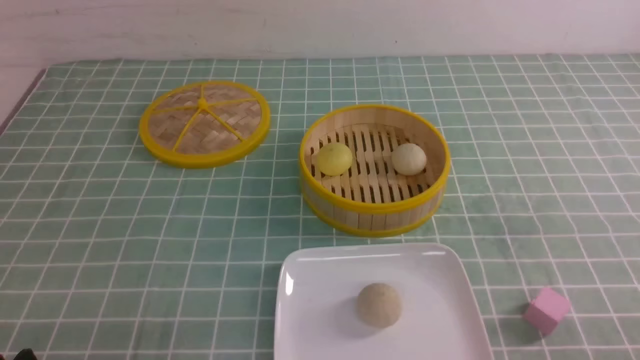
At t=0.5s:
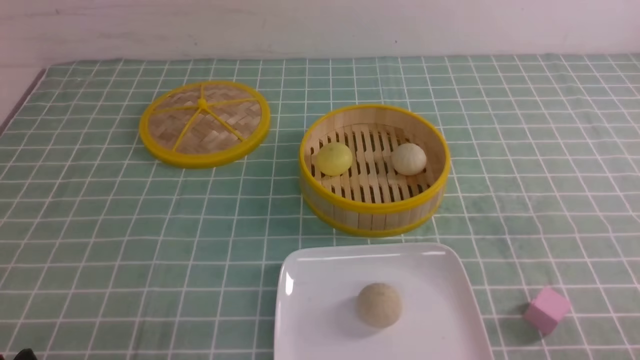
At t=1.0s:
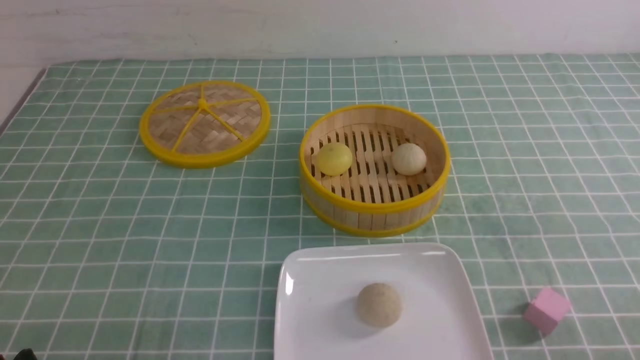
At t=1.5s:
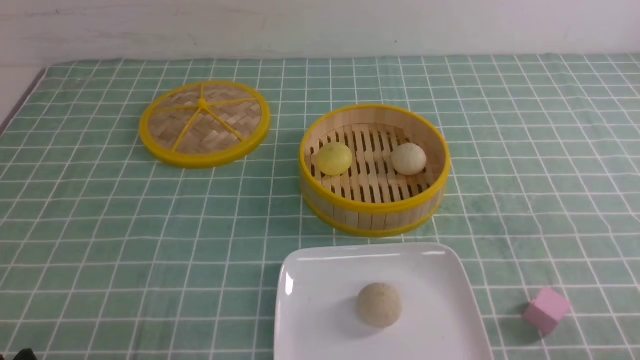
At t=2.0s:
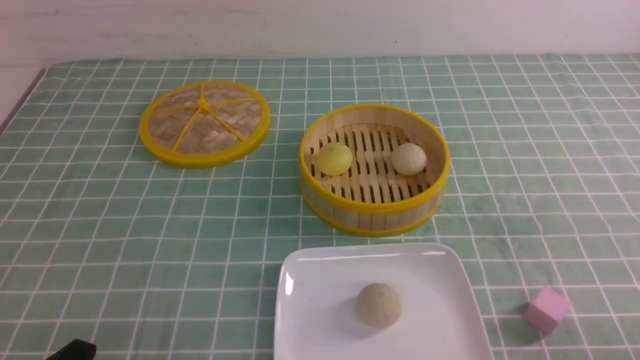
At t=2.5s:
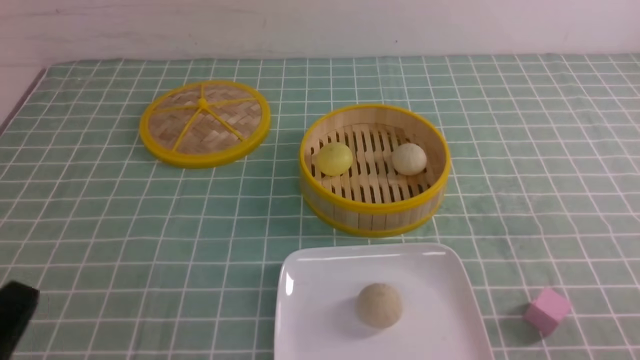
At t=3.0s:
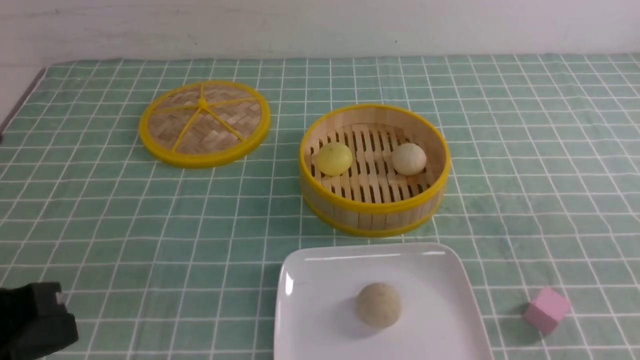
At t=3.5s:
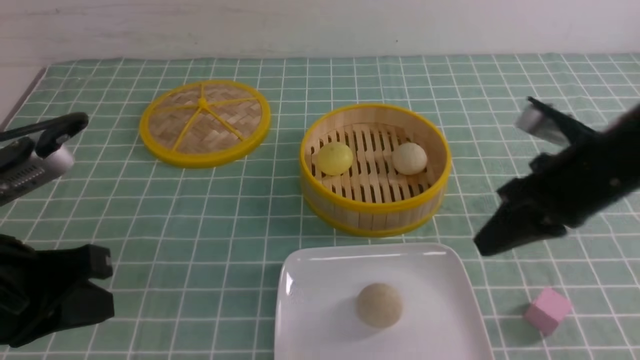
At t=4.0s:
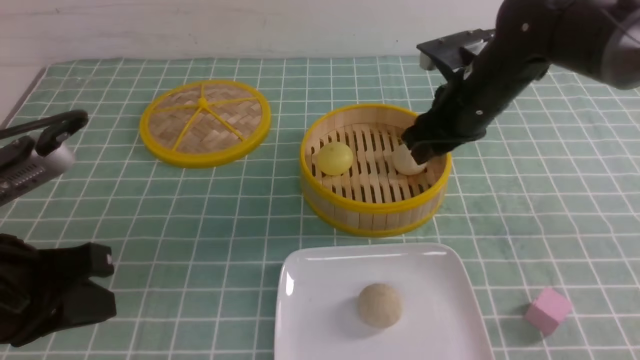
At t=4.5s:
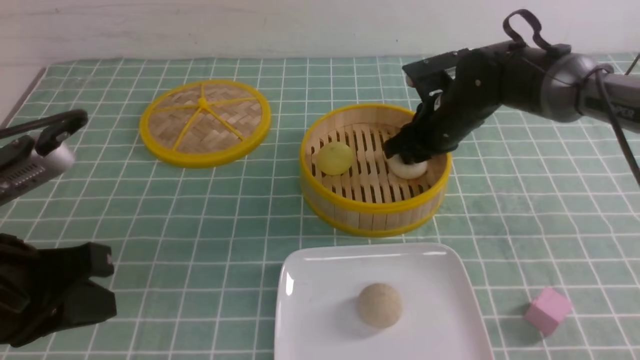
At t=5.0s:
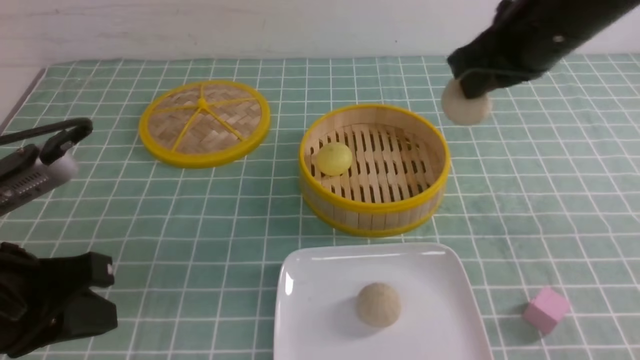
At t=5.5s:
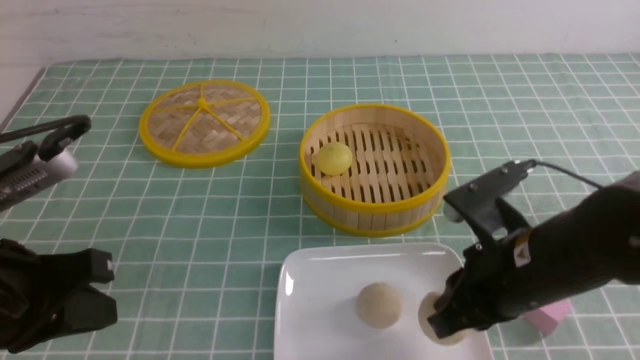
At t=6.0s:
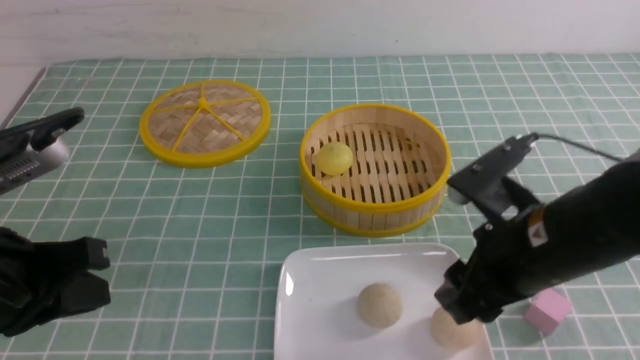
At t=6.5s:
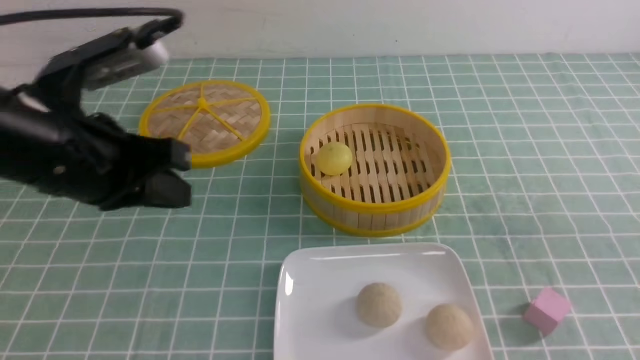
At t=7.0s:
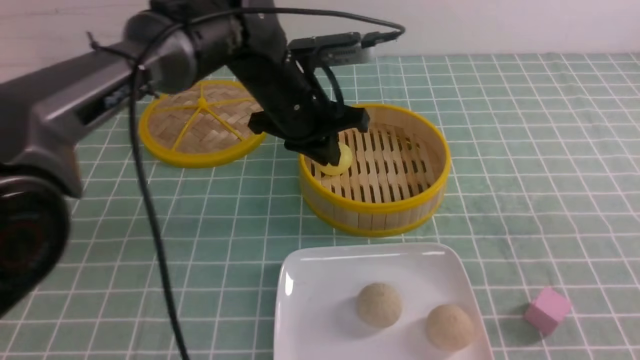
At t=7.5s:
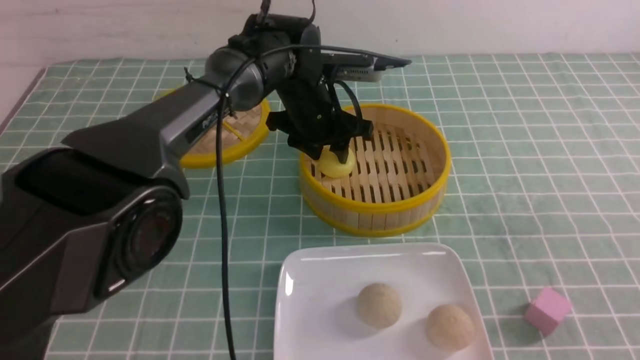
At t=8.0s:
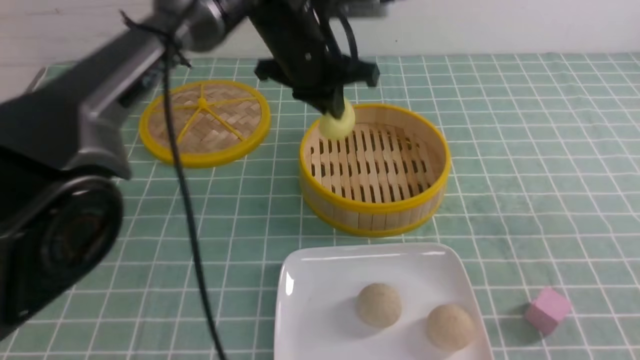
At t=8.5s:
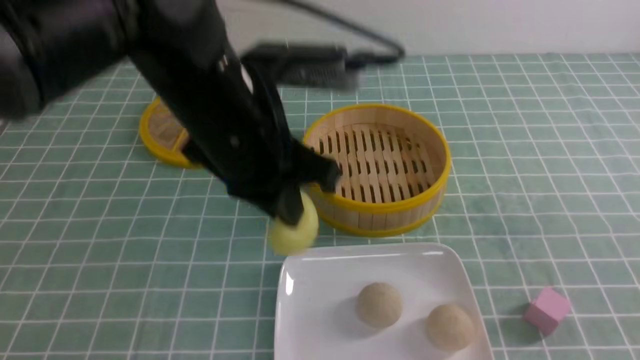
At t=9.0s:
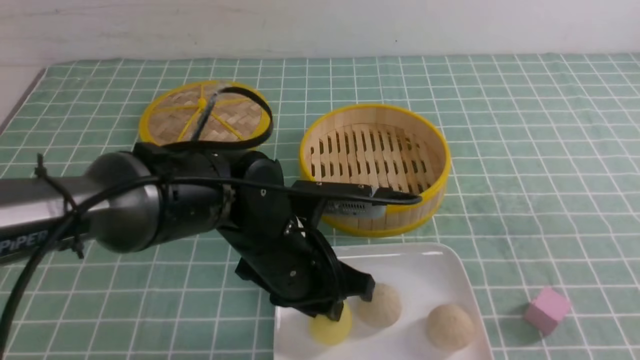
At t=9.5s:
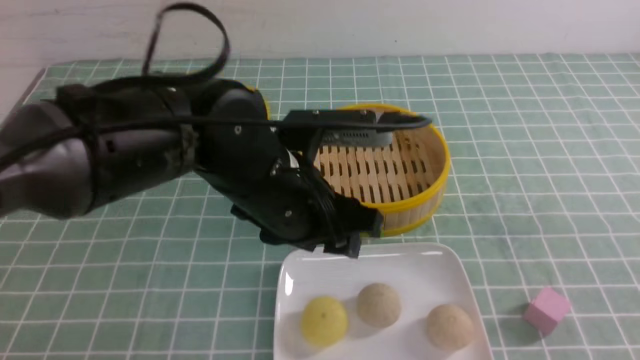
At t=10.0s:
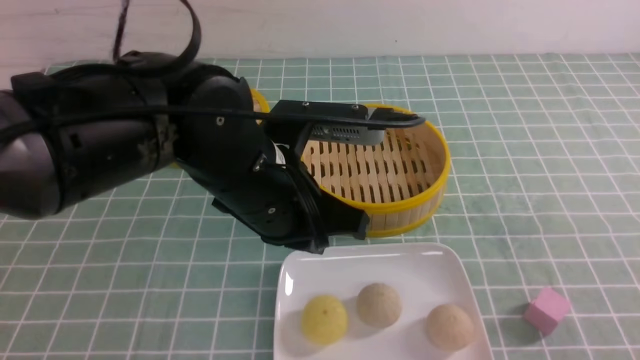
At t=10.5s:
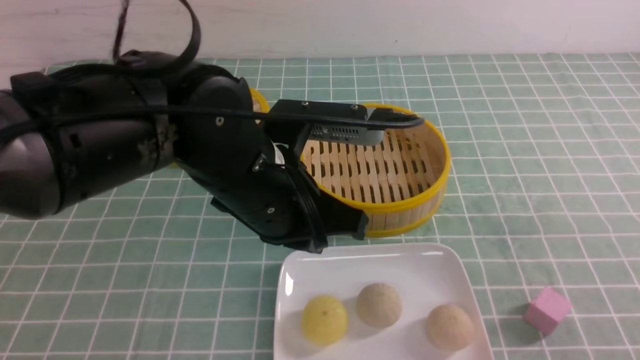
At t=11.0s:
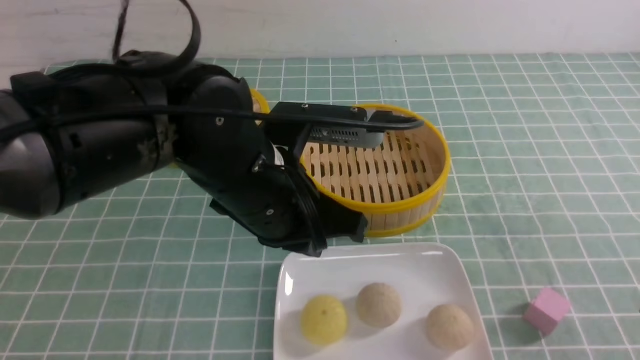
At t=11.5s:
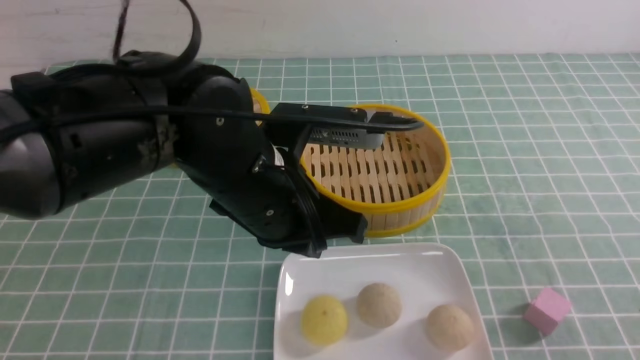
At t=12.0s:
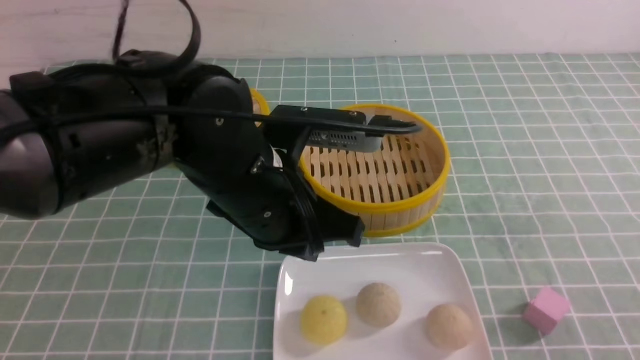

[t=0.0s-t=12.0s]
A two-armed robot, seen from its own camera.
Step, t=0.0s to t=4.5s: use the right arm to grab the steamed stuffed bun that is closest to it.
Step, t=5.0s to t=5.5s: use the right arm to put the steamed stuffed bun into the plate.
Step, t=6.0s to t=7.5s: use the left arm to grab the steamed stuffed bun that is closest to it.
Step, t=8.0s to t=9.0s: use the left arm to put the steamed stuffed bun into the plate.
t=2.0s to t=4.0s: The left gripper moves upward and forward, some 15 cm, and closes its fingers. The right gripper shifts roughly 40 cm forward and to the left, and closes and opens again.
t=4.0s to t=6.0s: The right gripper heads backward, covering approximately 20 cm, and closes and opens again.
t=6.0s to t=8.0s: The right gripper shifts approximately 15 cm backward and to the right, and closes up, while the left gripper travels forward and to the right by roughly 30 cm, and opens, then closes once more.
t=8.0s to t=10.0s: The left gripper travels backward by some 15 cm, and opens and closes again. The right gripper shifts roughly 5 cm backward.
t=10.0s to t=12.0s: The right gripper travels downward by about 10 cm.

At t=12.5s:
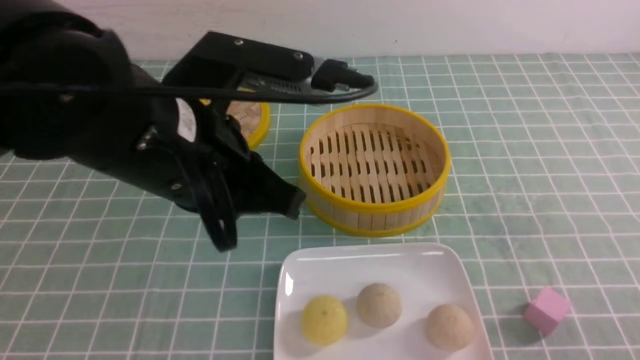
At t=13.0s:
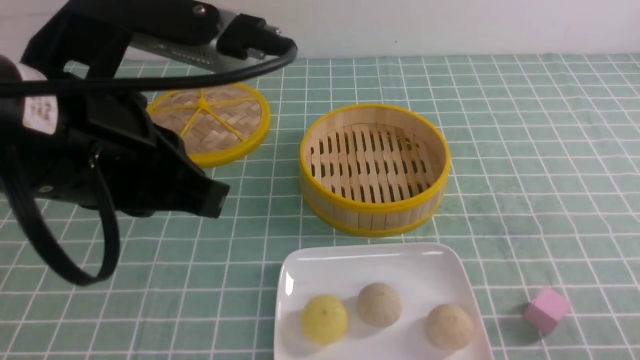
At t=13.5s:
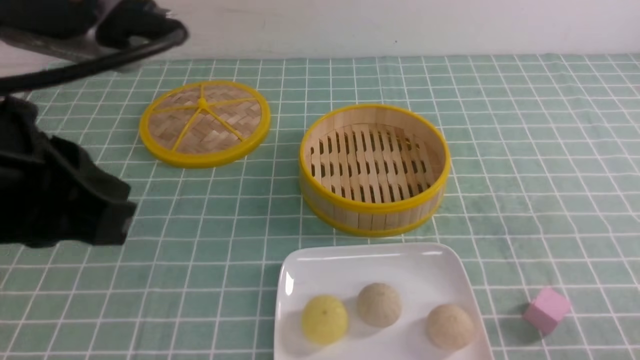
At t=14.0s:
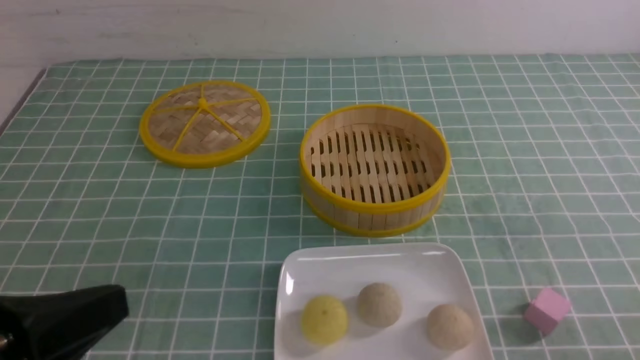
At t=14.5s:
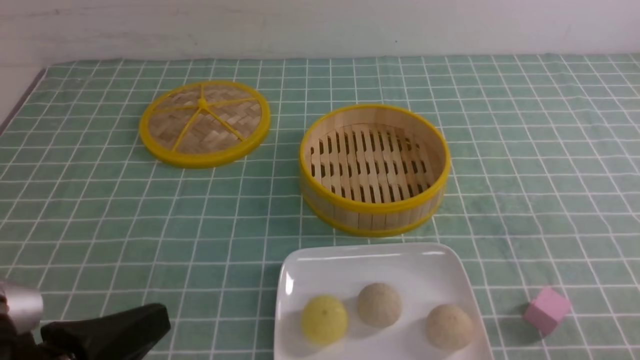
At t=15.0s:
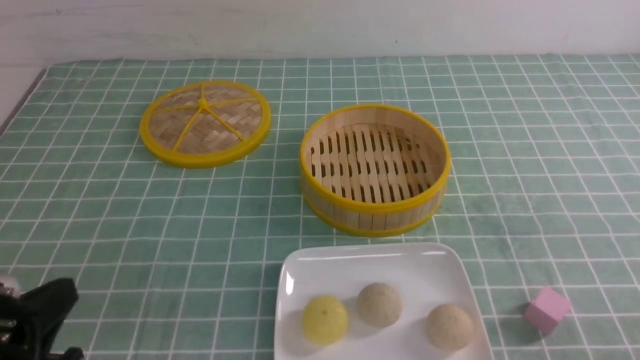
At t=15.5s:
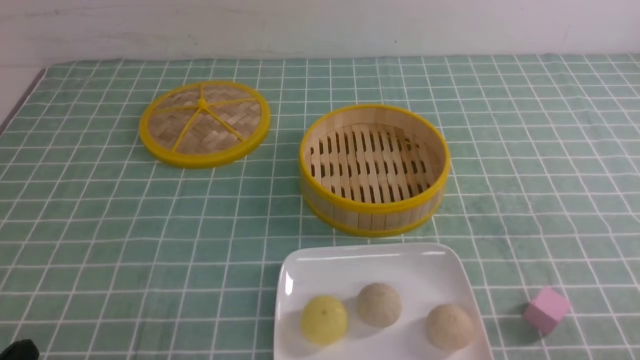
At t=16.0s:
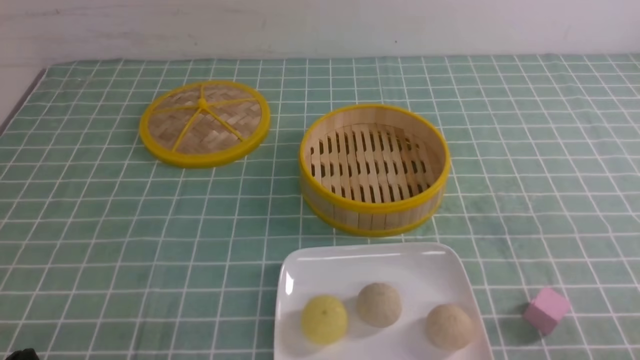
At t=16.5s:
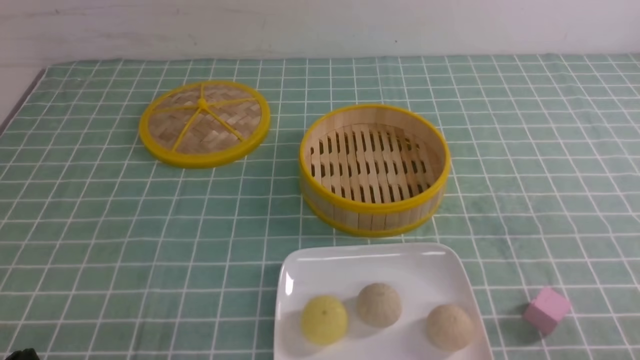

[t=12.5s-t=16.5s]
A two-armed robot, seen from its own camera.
t=12.5s to t=14.5s: The left gripper goes approximately 20 cm backward, to the left and downward.
t=14.5s to t=16.5s: The left gripper travels downward and to the left by some 10 cm.
